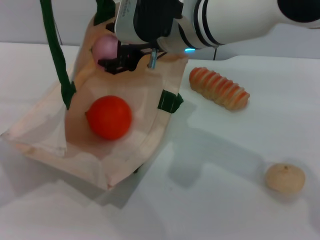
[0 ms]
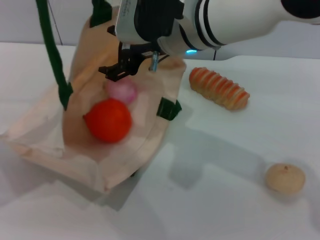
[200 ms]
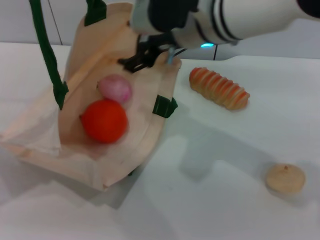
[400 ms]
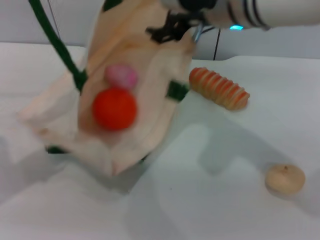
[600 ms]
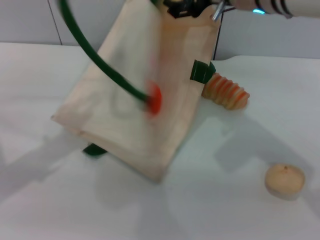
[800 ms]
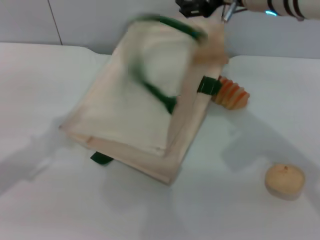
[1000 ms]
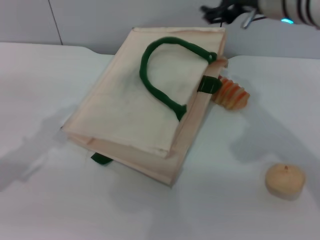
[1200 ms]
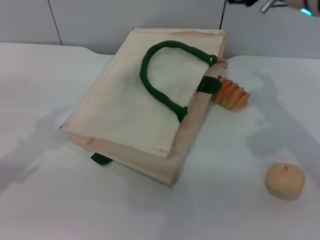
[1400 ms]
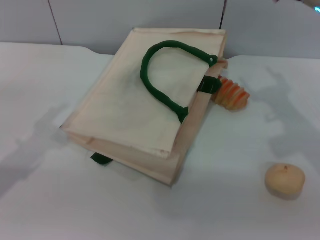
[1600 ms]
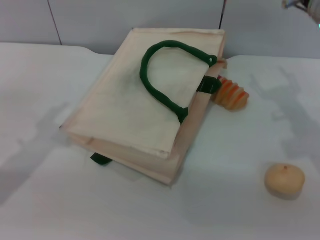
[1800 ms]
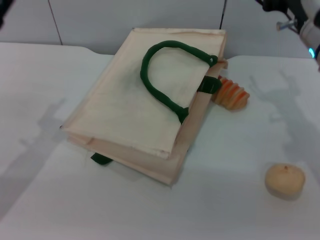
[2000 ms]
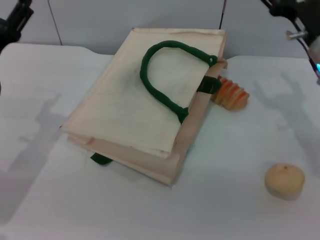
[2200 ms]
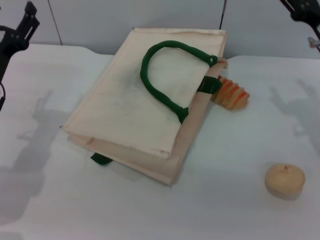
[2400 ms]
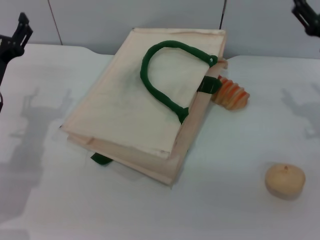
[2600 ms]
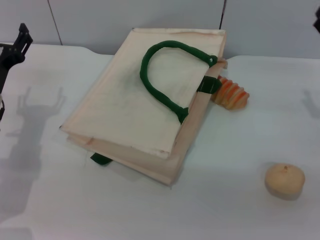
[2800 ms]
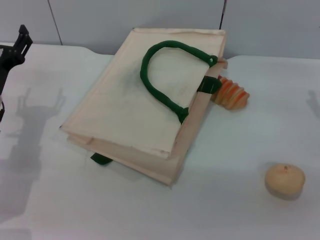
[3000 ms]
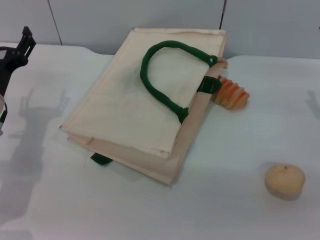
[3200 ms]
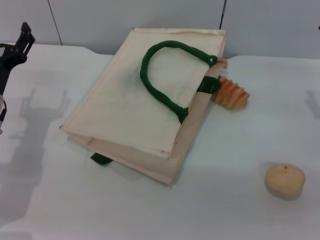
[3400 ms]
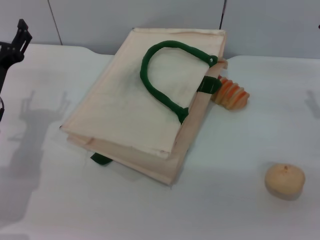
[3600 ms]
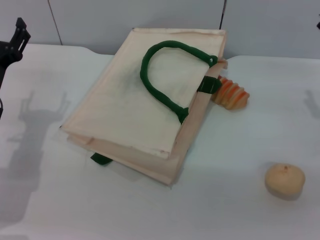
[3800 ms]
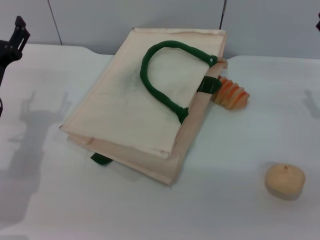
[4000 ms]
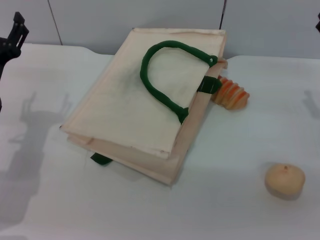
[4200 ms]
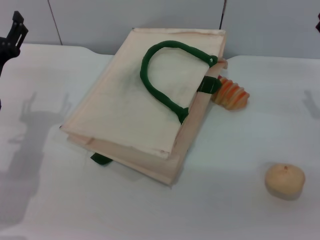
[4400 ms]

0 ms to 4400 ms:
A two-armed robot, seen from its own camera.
Task of the whole recording: pick up the orange and peach from the table and place it in the white handbag.
Step, 1200 ms to 2800 ms: Lower the woven bag with the left gripper to close it.
0 ms to 1400 ms: The right gripper travels to the right by roughly 15 cm; the left gripper goes roughly 5 cm to the left, and opens its fingers.
1400 ms to 3000 ms: The right gripper is displaced downward and to the right by about 20 cm. Meanwhile the left gripper heads downward and to the right, covering approximately 15 cm, and opens up.
3000 ms to 4400 ms: The grippers stay close to where they were, moving slightly.
